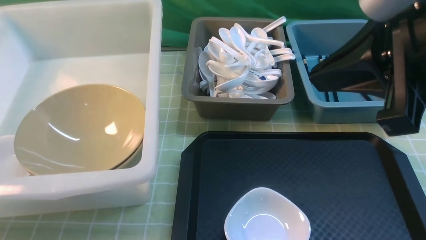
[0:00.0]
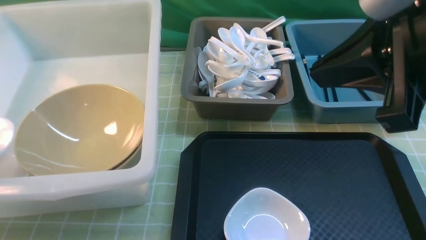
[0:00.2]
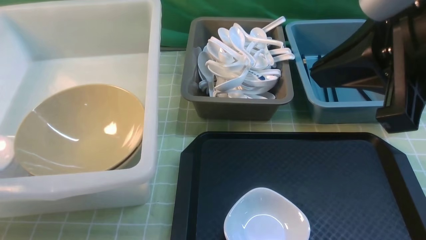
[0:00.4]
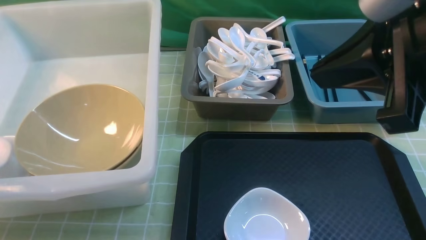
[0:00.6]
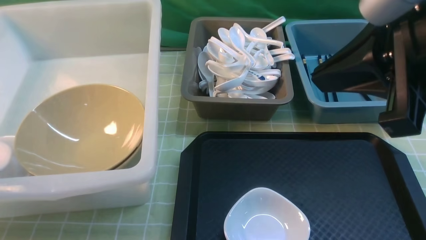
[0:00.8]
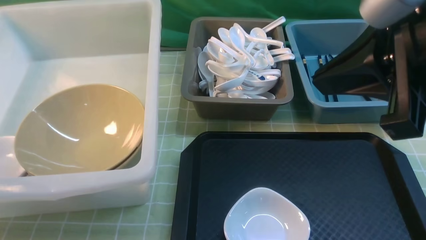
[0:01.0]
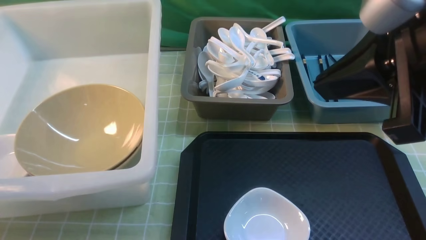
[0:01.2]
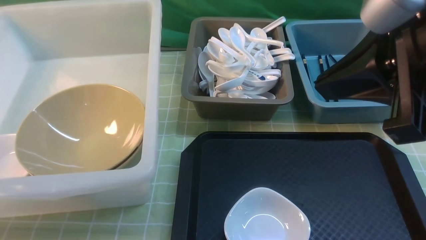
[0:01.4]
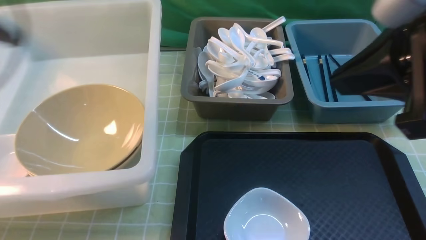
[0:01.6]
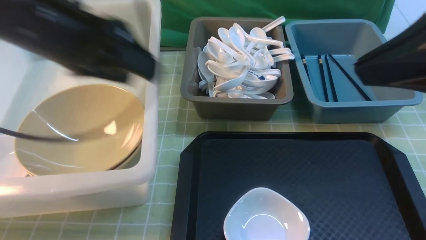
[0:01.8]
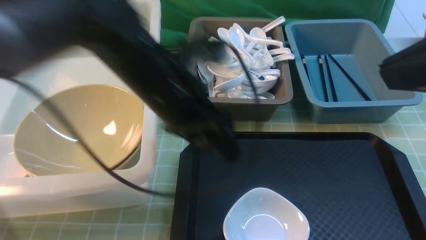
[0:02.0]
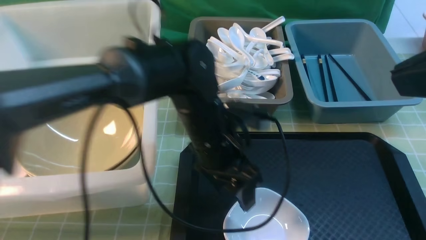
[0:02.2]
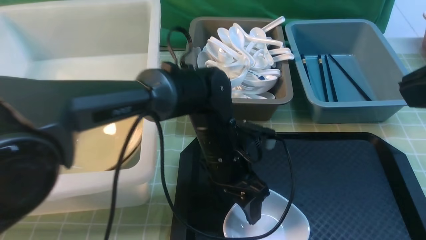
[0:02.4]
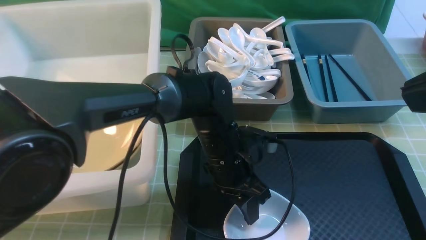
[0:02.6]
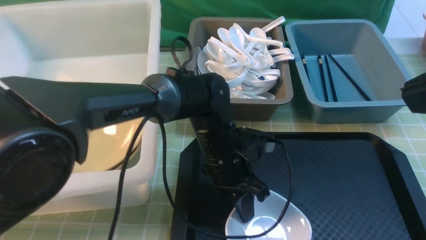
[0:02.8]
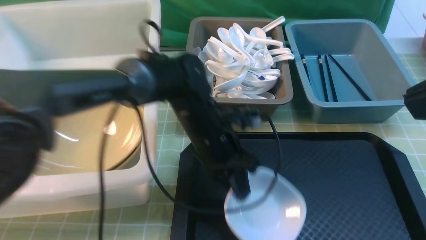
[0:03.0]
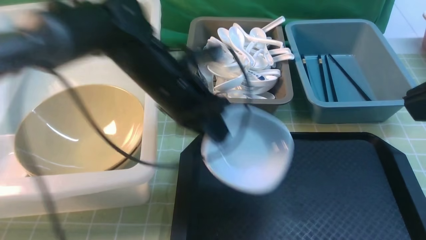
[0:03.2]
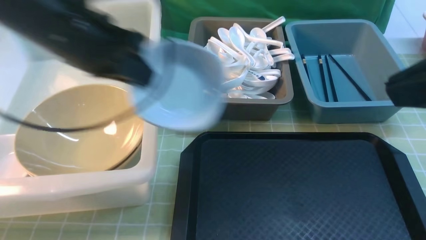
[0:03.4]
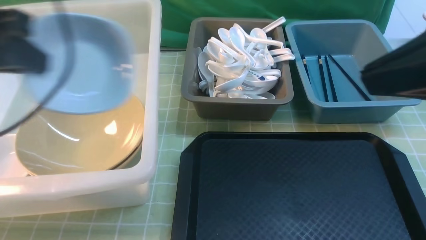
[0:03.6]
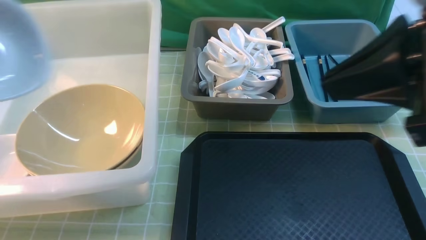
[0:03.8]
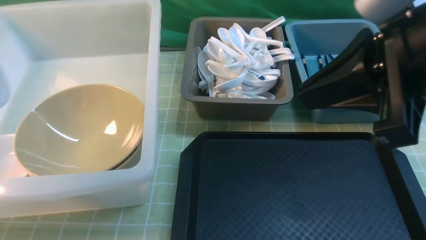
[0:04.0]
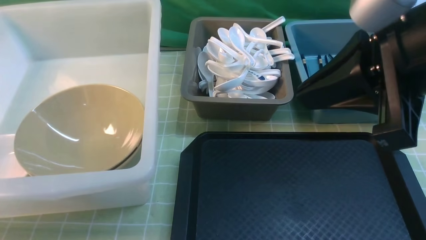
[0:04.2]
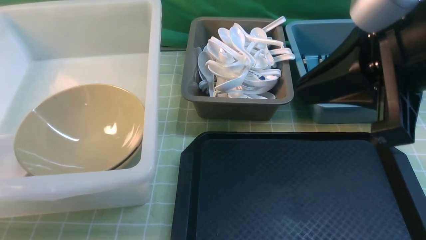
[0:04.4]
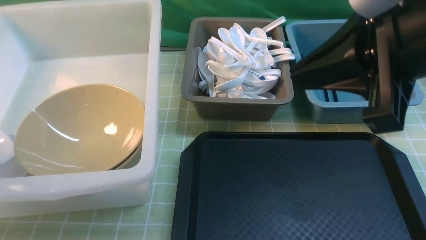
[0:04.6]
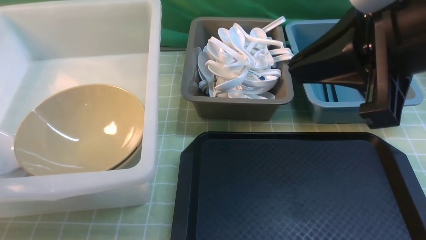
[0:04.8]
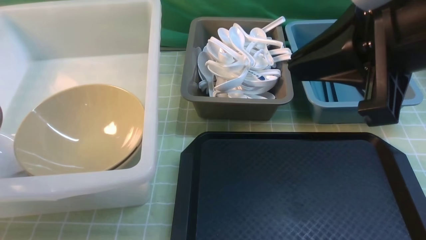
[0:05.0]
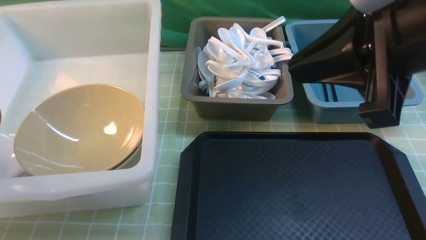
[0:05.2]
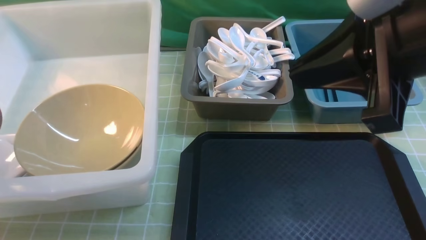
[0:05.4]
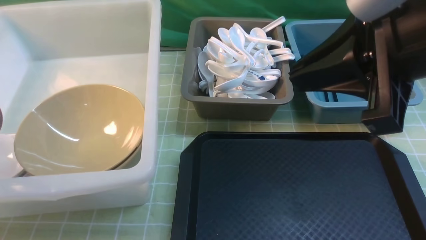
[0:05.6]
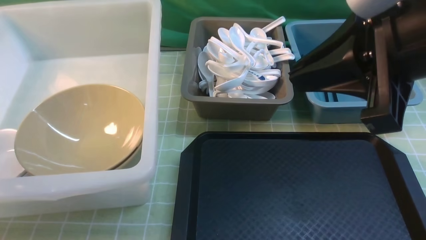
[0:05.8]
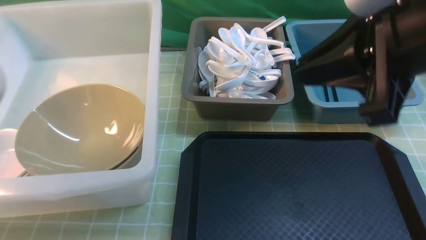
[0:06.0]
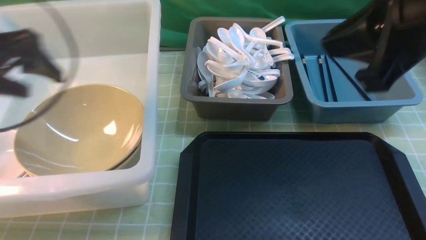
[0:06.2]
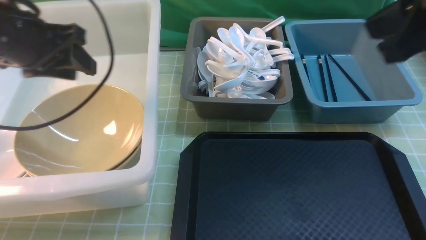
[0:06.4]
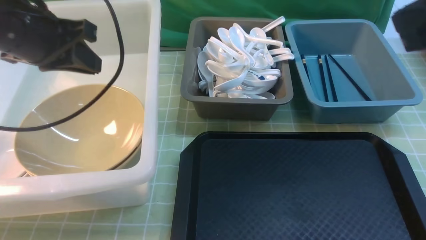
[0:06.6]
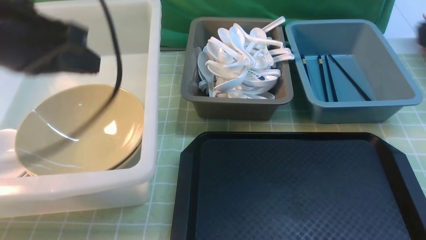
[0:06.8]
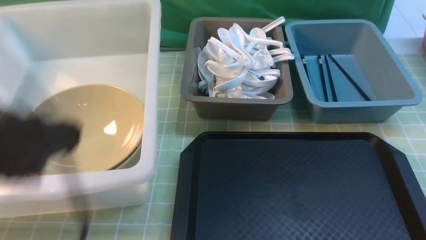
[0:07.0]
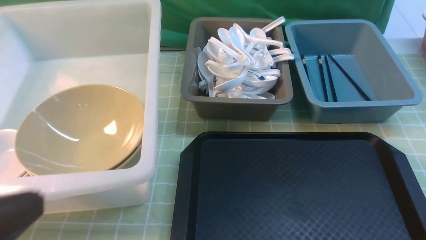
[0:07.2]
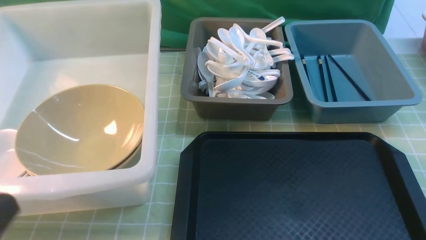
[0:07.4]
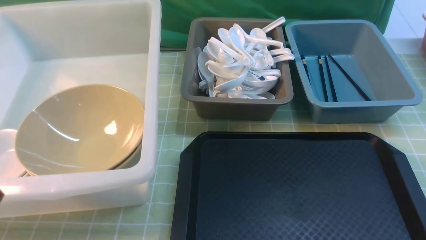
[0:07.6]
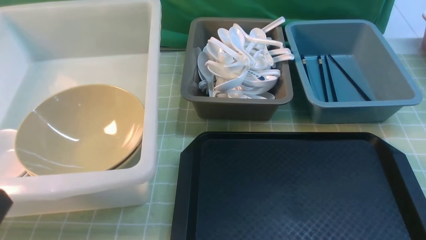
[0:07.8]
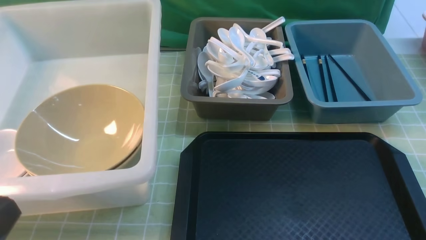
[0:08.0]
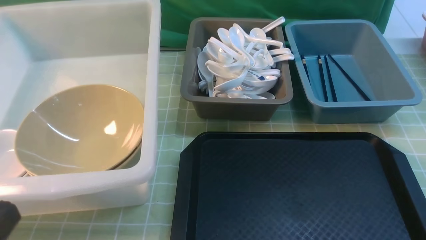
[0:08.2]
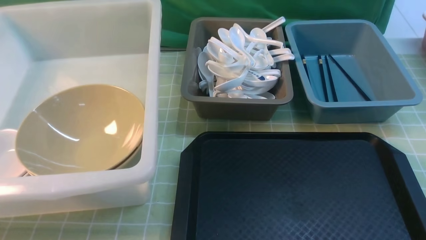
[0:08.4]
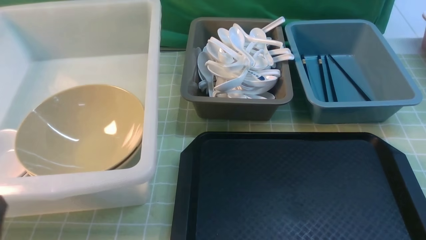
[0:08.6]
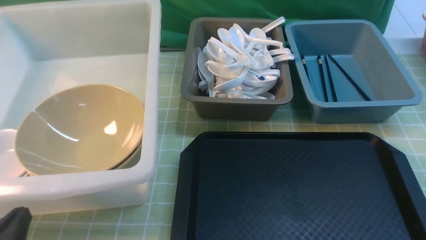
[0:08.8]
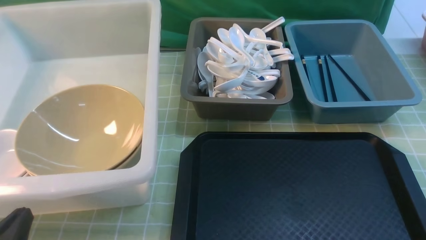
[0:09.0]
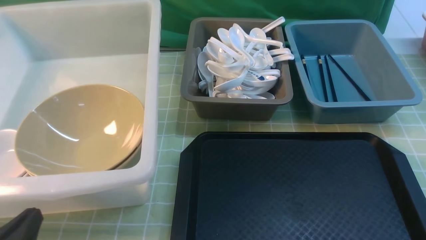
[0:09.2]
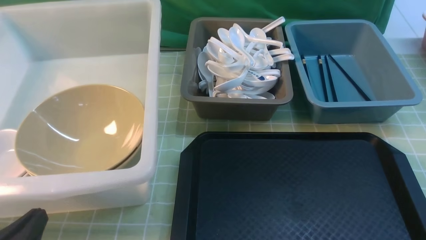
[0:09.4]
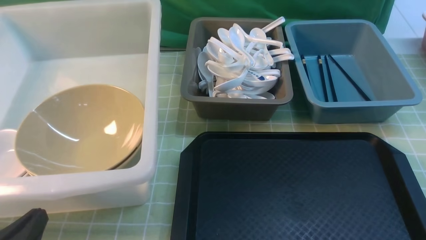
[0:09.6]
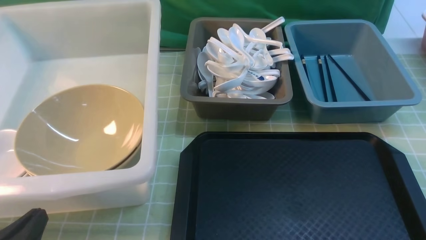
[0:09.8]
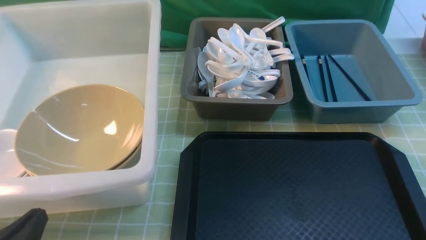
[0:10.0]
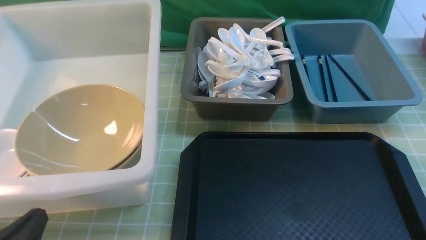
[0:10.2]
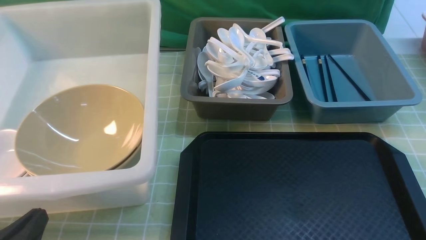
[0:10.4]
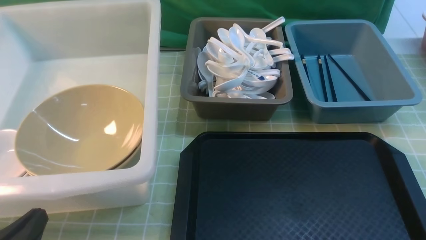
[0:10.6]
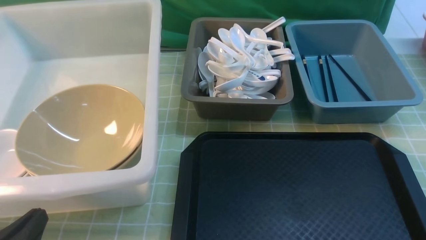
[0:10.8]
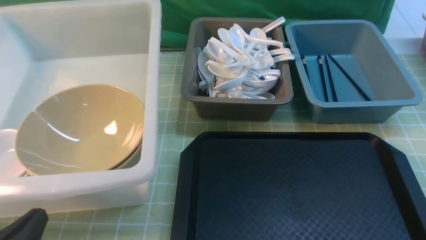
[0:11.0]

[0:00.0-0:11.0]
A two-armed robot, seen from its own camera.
Task of the whole recording: on green table put chopsticks spoon bowls plates into blue grey white boxes.
Step, 0:01.2 to 0:03.0: use the left arm to grab the plate.
Step, 0:03.2 to 0:05.8: use the left arm to put the plate into the large storage box on the left.
0:00.0 to 0:01.6: The left gripper travels to the right and upward by about 20 cm, and opens.
0:01.6 to 0:03.2: The right gripper ends up roughly 5 cm from where it was, while the left gripper shifts approximately 20 cm to the right and downward, and closes.
0:03.2 to 0:04.8: The left gripper shifts some 35 cm to the left; the right gripper moves forward and to the left, approximately 10 cm.
0:04.8 to 0:06.2: The left gripper goes about 15 cm to the right and upward, and opens its fingers.
0:06.2 to 0:07.8: The left gripper travels backward by approximately 30 cm, and closes its fingers. The right gripper is displaced backward, downward and to the right by some 25 cm.
0:07.8 to 0:09.4: The left gripper shifts roughly 10 cm downward.

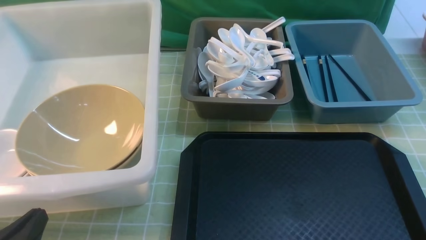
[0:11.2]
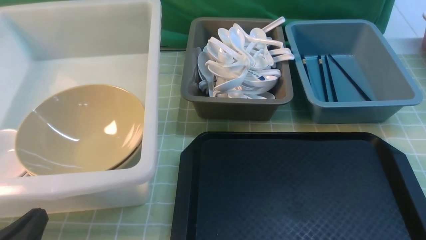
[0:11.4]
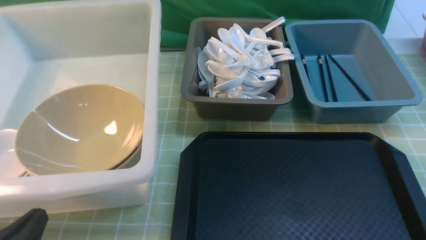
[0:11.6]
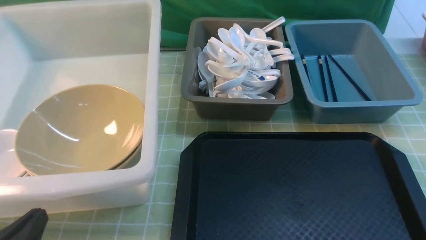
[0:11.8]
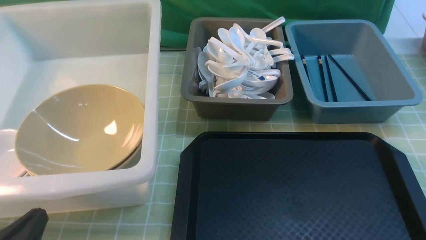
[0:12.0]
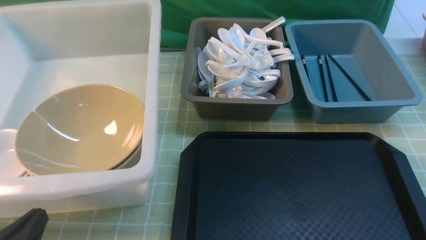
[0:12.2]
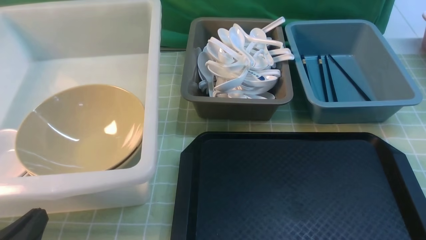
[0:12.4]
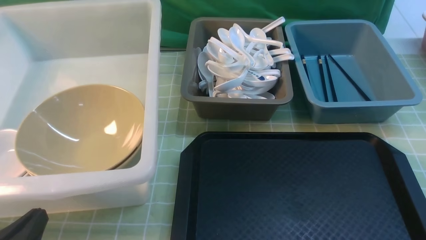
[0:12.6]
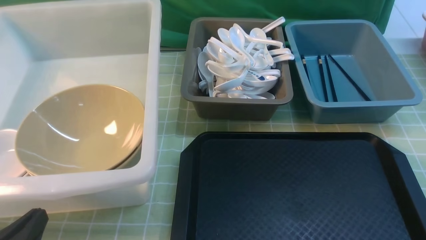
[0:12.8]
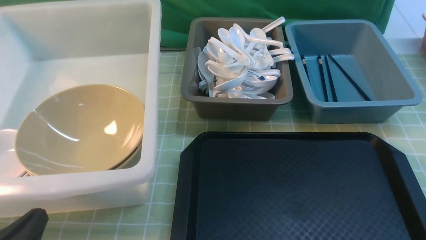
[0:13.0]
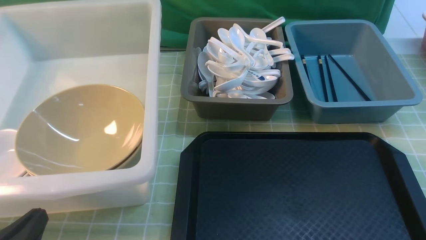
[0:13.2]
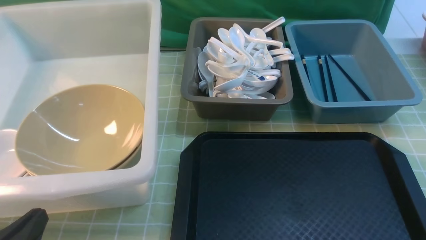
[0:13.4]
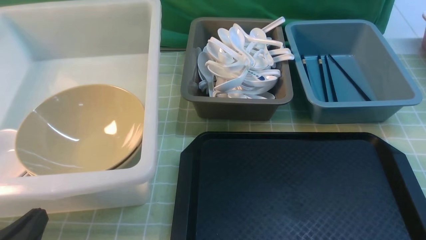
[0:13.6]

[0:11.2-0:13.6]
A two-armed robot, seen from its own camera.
Task of the whole recording: on green table put chopsticks spoon bowls plates into blue grey white boxes.
0:11.2 to 0:13.6: Neither gripper changes place.

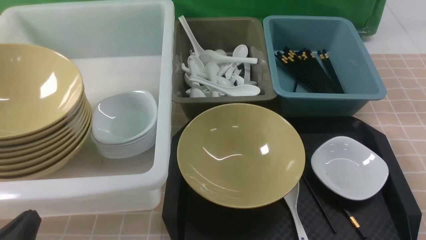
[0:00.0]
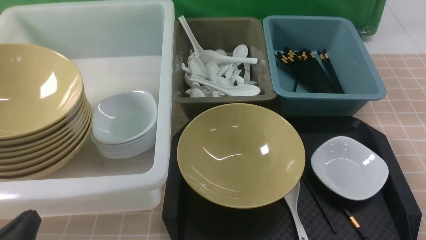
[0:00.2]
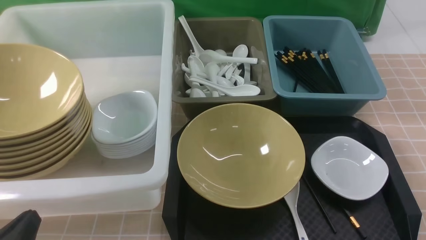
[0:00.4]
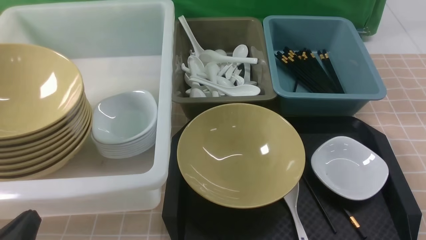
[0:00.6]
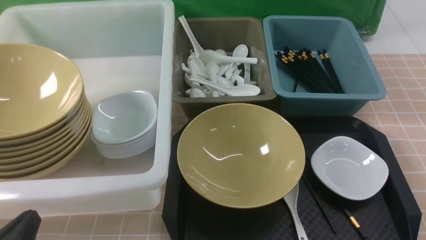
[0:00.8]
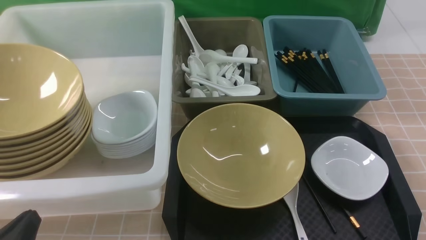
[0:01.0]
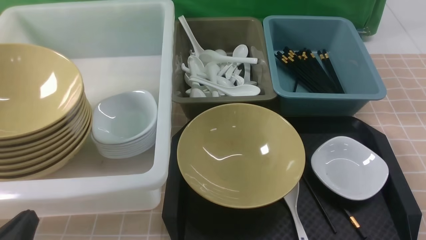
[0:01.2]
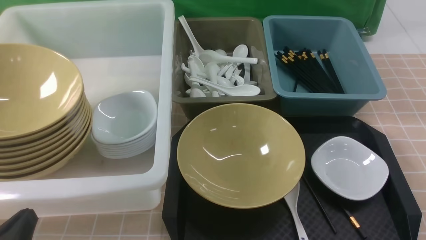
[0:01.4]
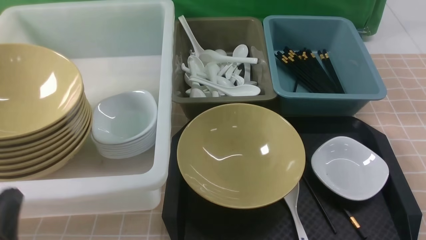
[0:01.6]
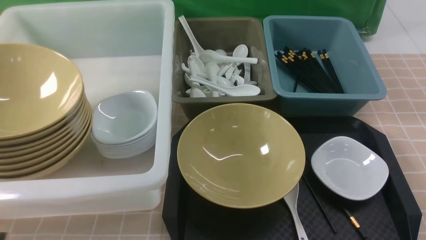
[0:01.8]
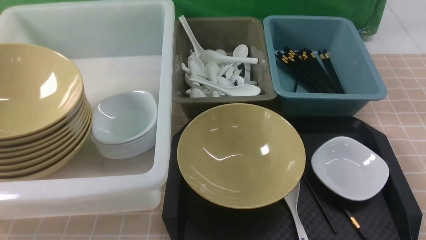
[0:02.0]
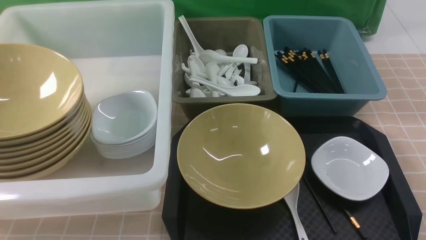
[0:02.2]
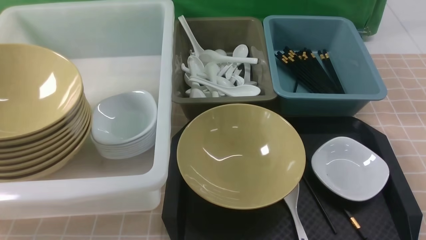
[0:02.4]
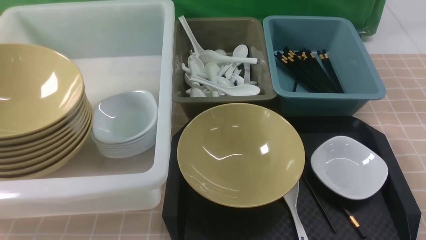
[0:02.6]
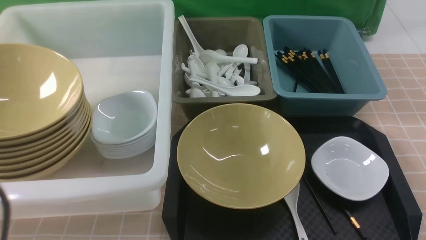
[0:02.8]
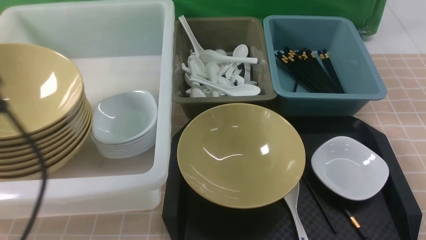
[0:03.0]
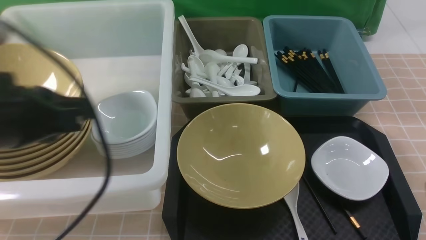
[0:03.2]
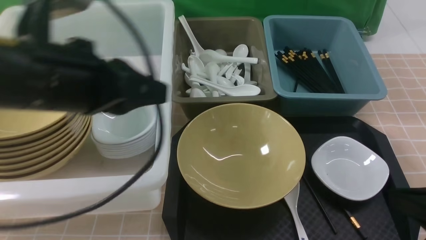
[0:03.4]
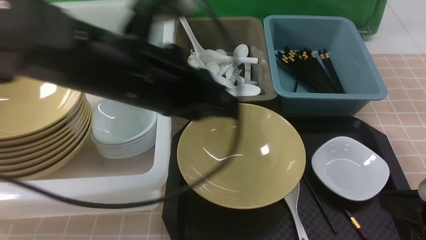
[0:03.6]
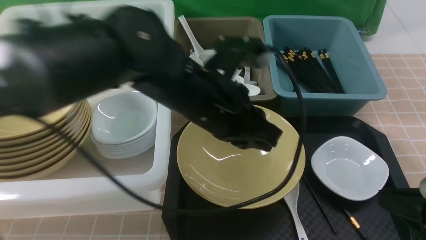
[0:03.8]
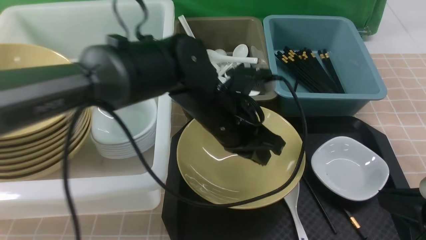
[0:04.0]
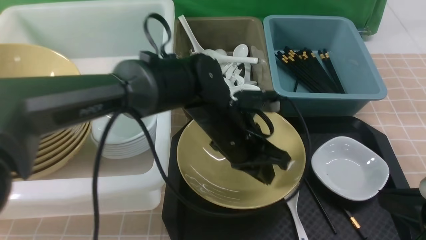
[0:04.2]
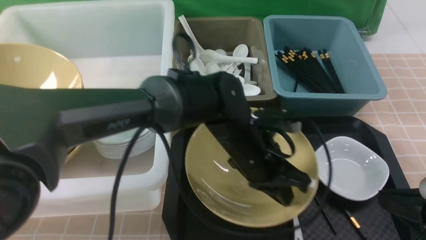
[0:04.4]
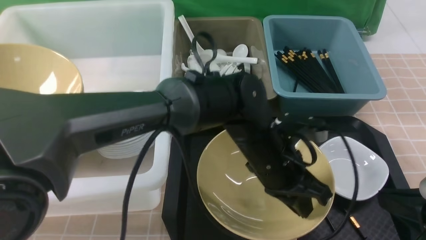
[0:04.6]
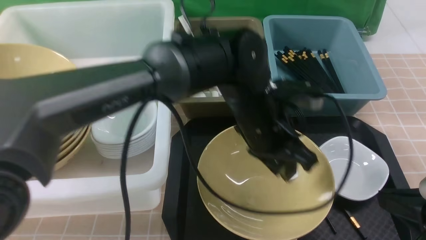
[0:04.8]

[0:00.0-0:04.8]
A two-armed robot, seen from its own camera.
Task of the whole recording: on brown table put chopsticks spoon bowls plates into blue grey white boxes.
0:01.6 to 0:03.2: The left gripper is displaced upward and forward by about 20 cm.
0:03.2 to 0:04.8: The left gripper goes some 30 cm to the right, downward and forward, and opens its fingers.
